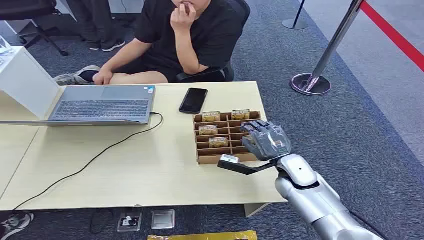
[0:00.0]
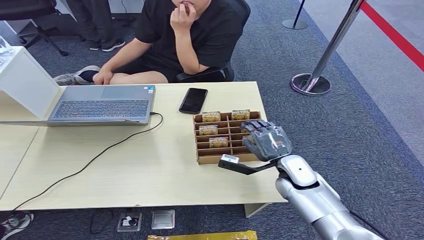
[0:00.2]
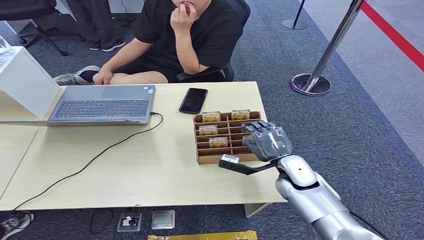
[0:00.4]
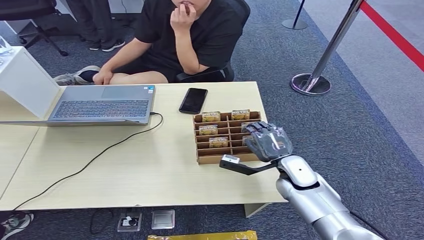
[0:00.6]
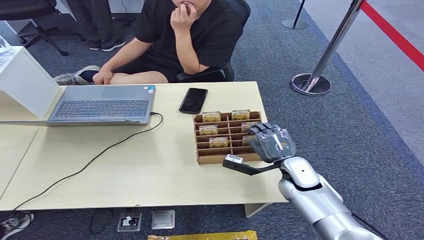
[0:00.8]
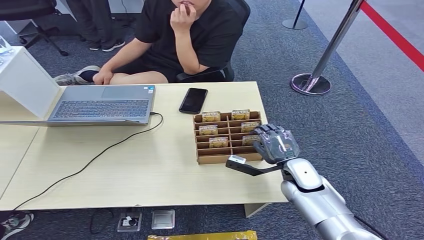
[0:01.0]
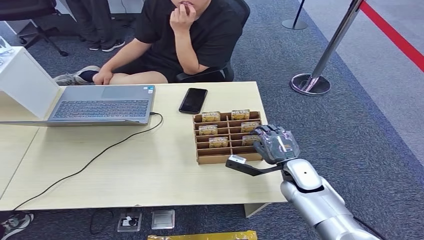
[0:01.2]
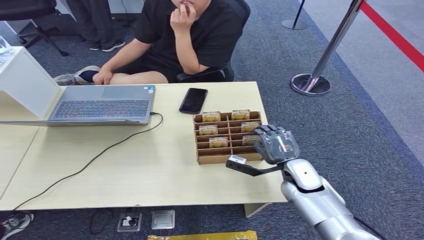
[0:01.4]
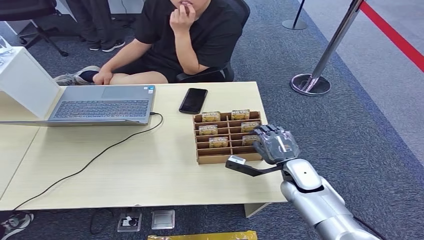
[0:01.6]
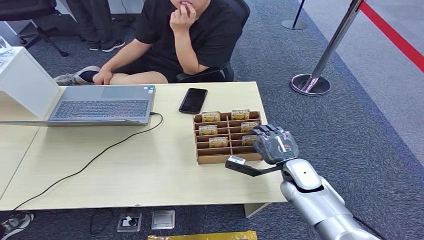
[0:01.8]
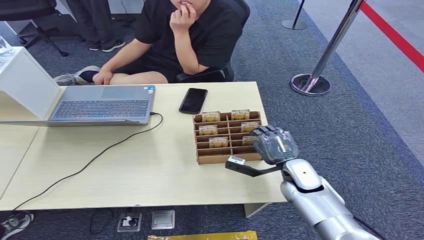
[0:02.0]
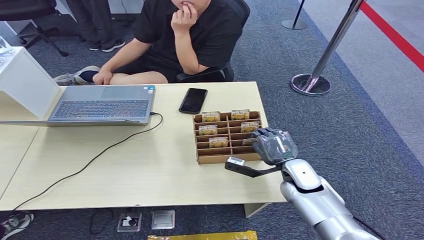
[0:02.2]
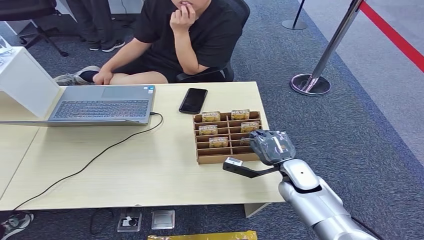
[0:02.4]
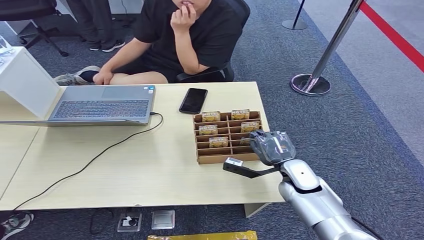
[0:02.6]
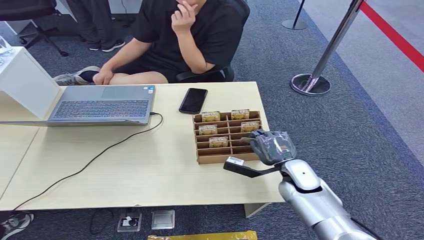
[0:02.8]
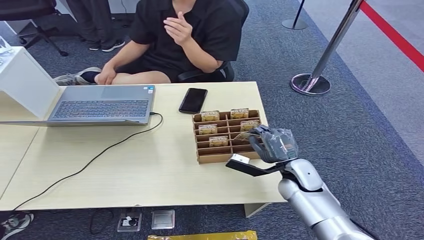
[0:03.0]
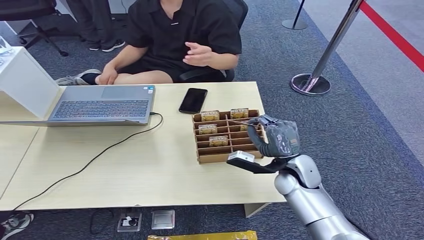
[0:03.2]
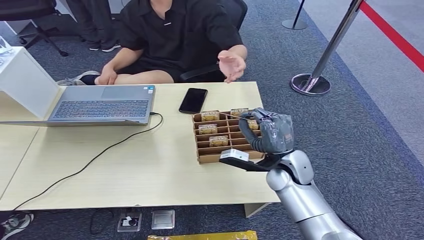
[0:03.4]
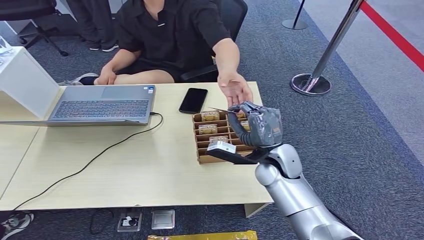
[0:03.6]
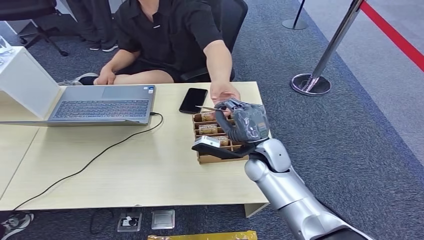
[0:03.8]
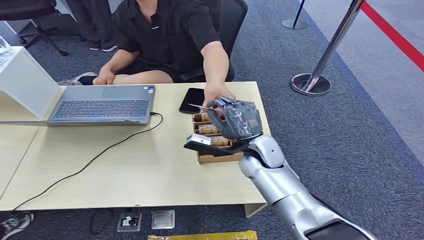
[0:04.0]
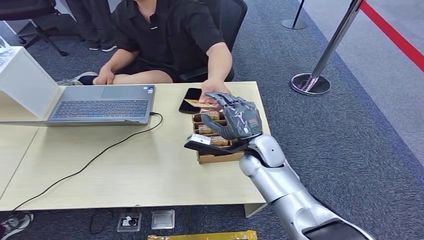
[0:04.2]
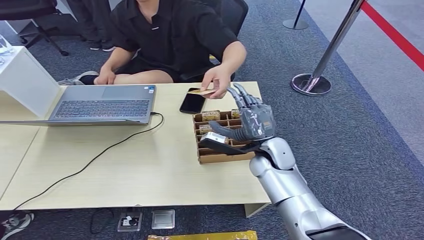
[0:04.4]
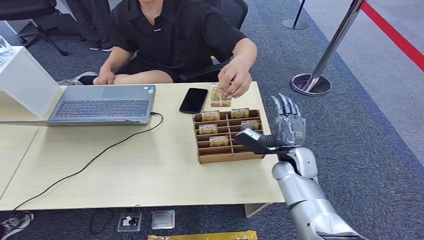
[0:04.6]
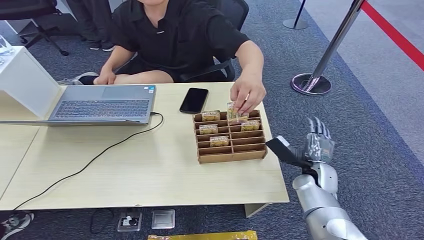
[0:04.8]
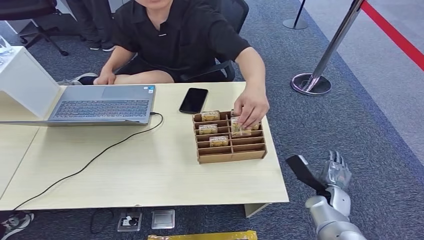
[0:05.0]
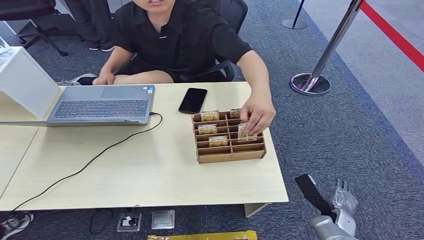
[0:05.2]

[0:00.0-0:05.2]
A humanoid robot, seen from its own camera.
Step, 0:00.0 to 0:03.4: Pick up the room card from the card holder.
Step, 0:03.6 to 0:05.2: Hand the room card to the target.
0:01.8 to 0:03.4: The right hand is displaced upward by roughly 5 cm.
0:03.4 to 0:05.2: The right hand moves downward, to the right and backward, about 25 cm.
